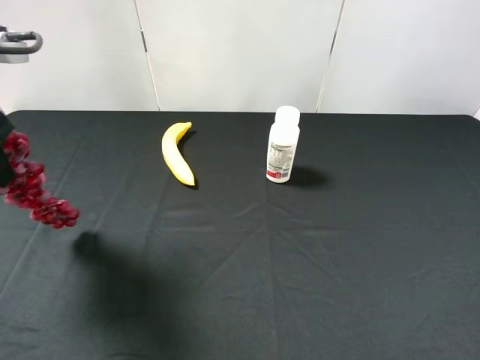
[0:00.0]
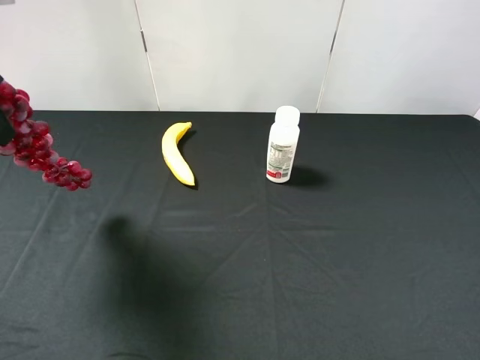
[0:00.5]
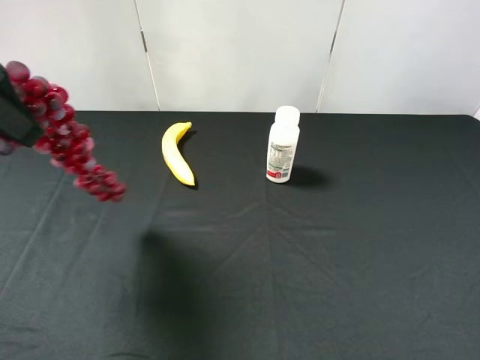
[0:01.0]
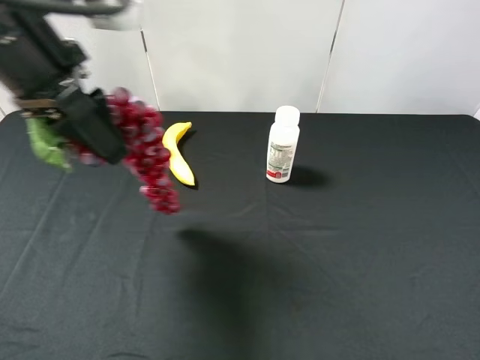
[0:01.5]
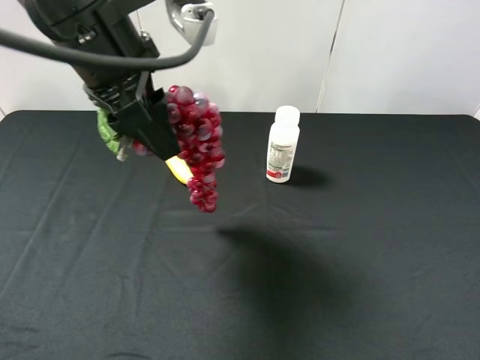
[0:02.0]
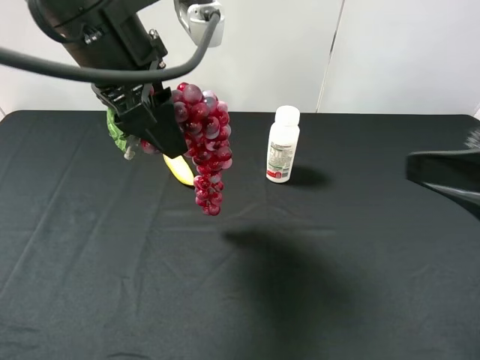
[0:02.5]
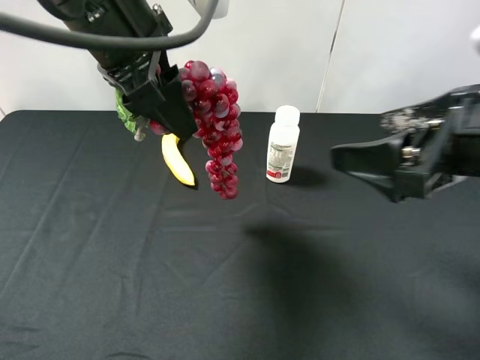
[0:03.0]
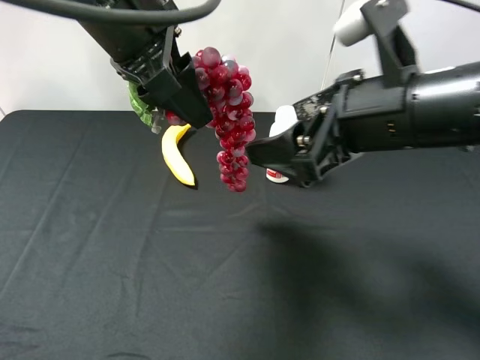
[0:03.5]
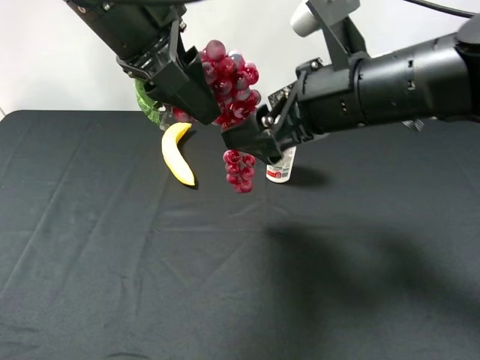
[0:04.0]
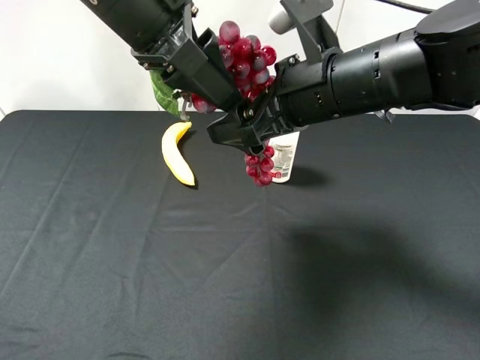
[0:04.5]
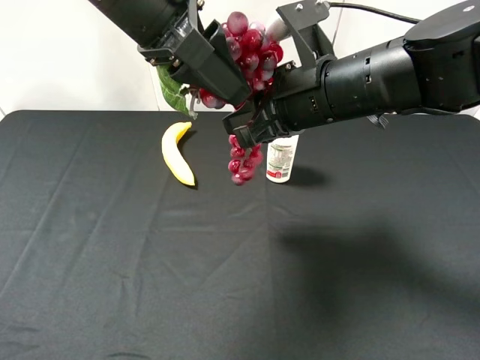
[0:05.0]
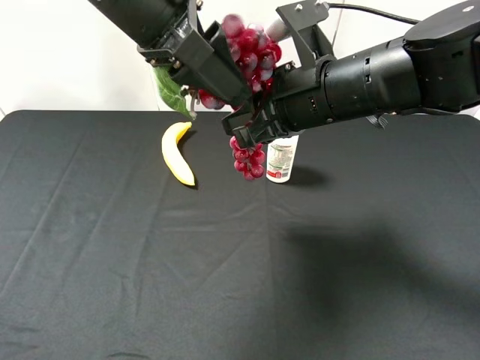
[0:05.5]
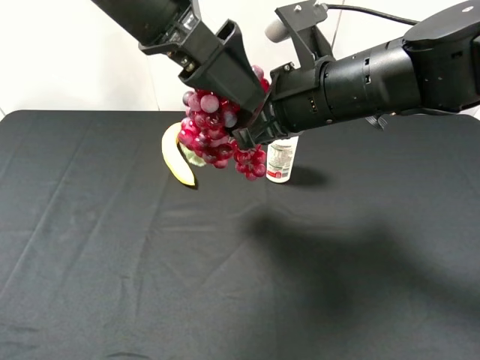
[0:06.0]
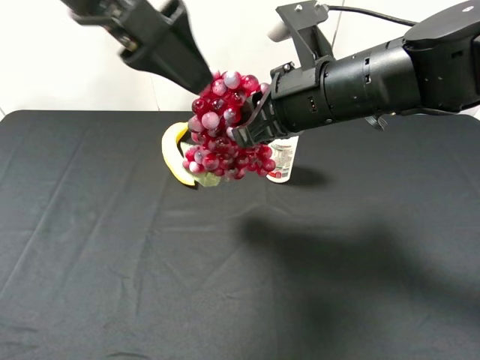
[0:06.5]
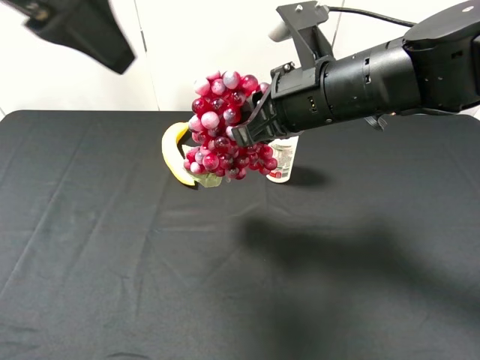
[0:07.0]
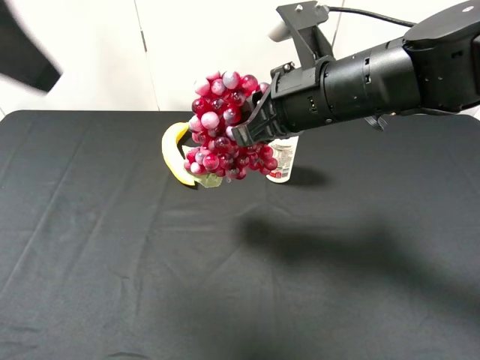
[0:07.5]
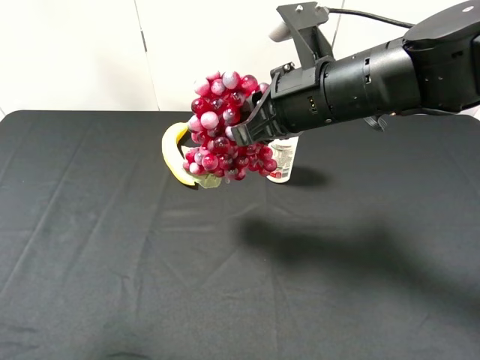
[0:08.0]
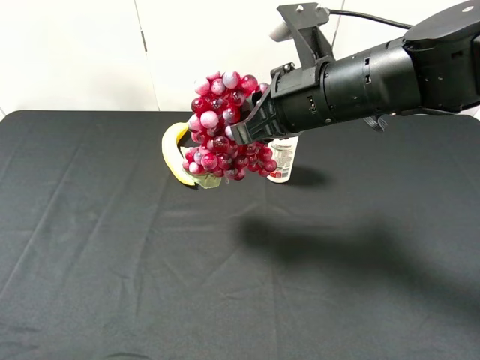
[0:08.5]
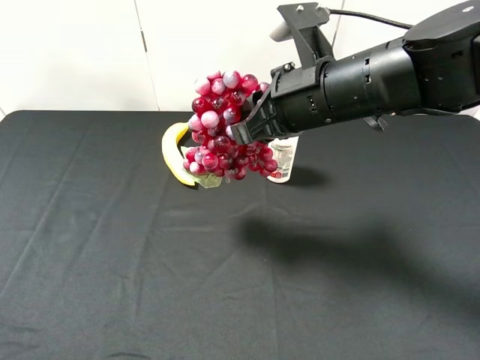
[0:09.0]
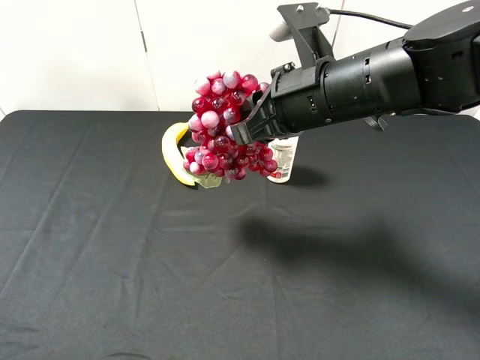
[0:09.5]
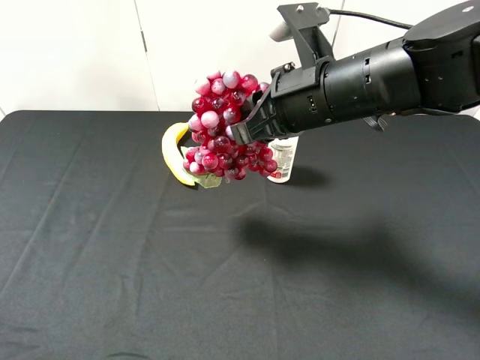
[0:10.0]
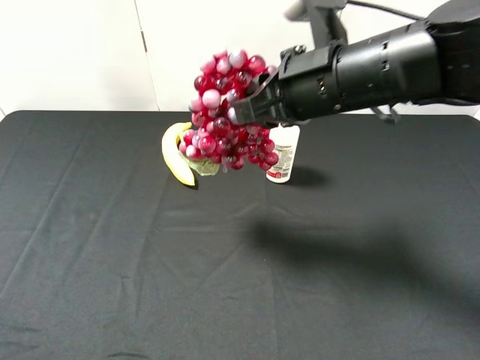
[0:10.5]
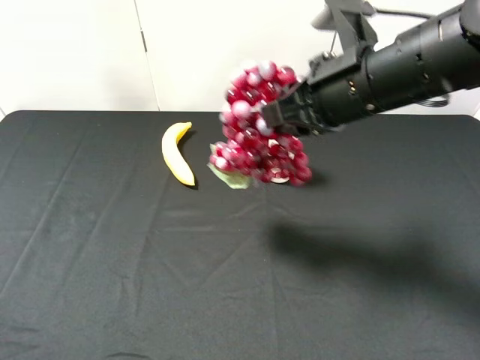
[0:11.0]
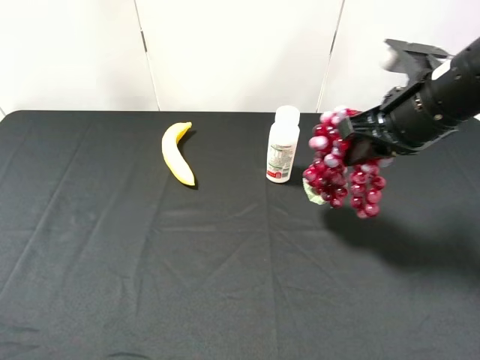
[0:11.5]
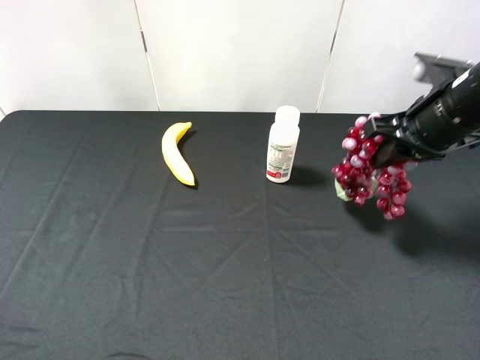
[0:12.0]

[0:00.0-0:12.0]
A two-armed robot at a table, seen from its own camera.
Task of the whole recording: use the left gripper to pick up the item and transfer it from the left gripper to the right gripper.
0:00.0 to 0:02.0: The left gripper goes roughly 15 cm to the right.
0:02.0 to 0:04.0: The right gripper moves forward and to the left, approximately 25 cm.
0:04.0 to 0:06.0: The left gripper opens up, while the right gripper closes up.
0:06.0 to 0:08.0: The left gripper moves backward and to the left, about 25 cm.
0:10.0 to 0:12.0: The right gripper goes some 15 cm to the right.

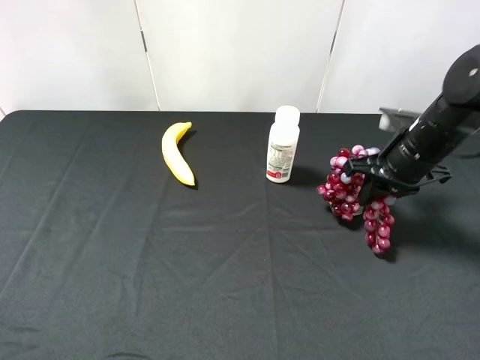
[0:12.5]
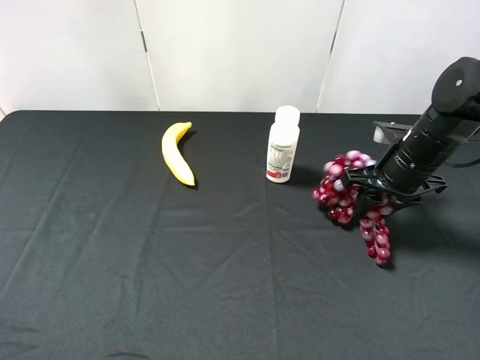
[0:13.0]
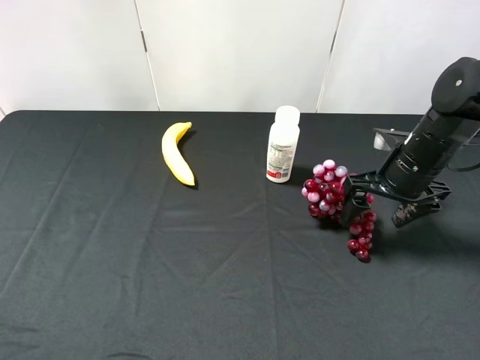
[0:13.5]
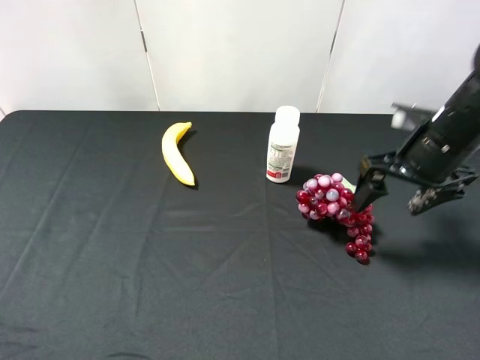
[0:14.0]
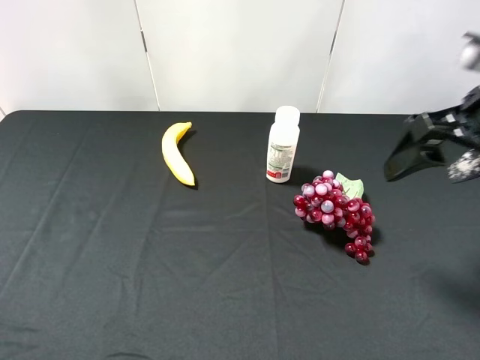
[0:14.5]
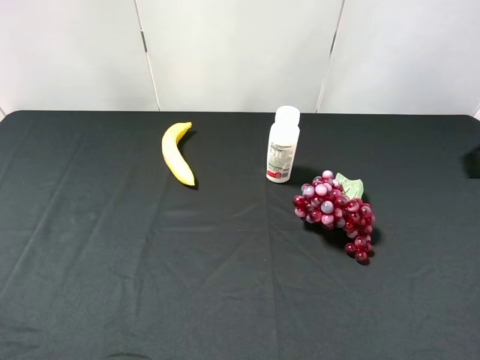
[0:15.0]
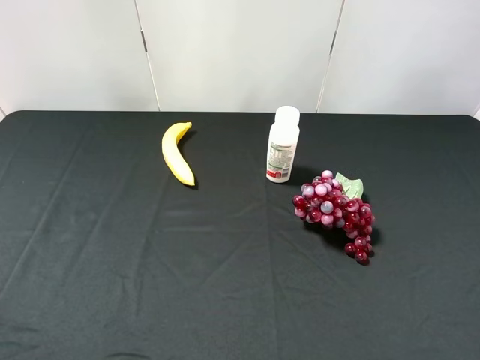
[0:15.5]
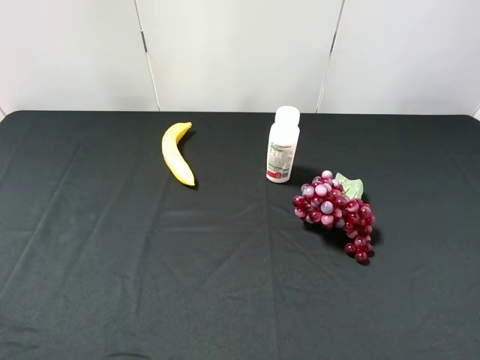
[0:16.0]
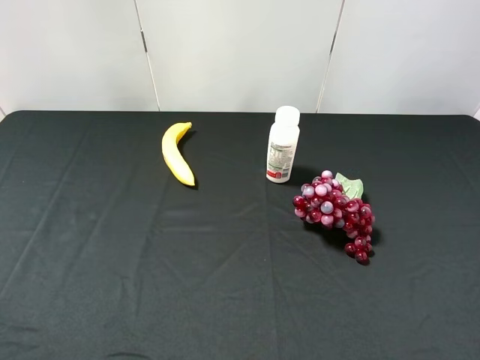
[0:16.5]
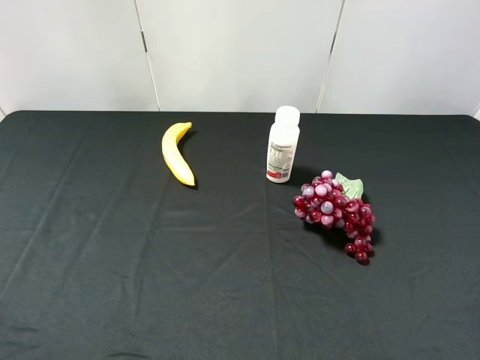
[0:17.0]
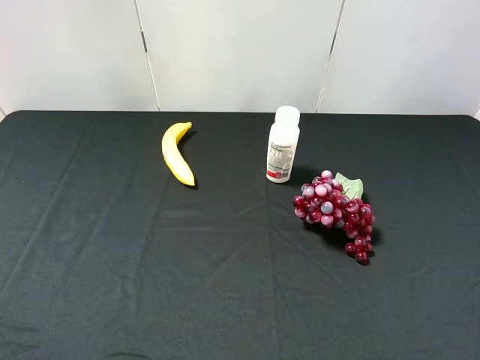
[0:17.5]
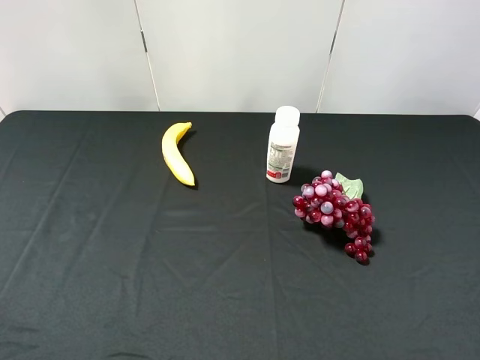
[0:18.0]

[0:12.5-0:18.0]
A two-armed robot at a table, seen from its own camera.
Task of the whole recording: use the left gripper to pick up the item and transfer it from the left gripper to the right gripper.
0:12.5 to 0:14.5: The right gripper moves upward and backward, some 15 cm, and opens up.
0:14.5 to 0:16.0: The right gripper heads backward, covering roughly 20 cm.

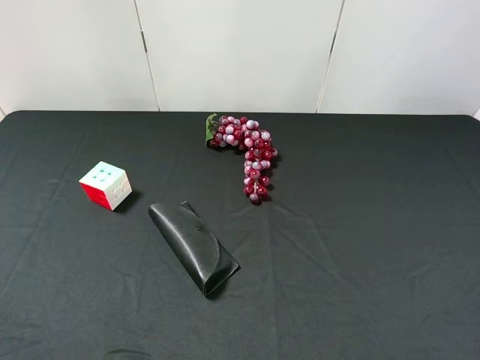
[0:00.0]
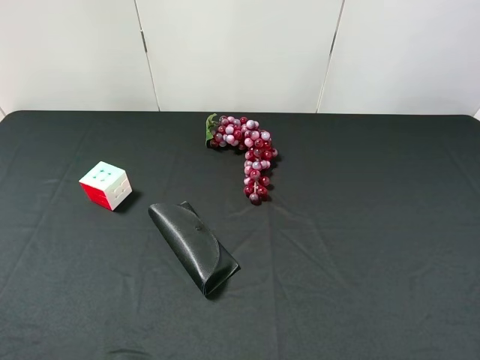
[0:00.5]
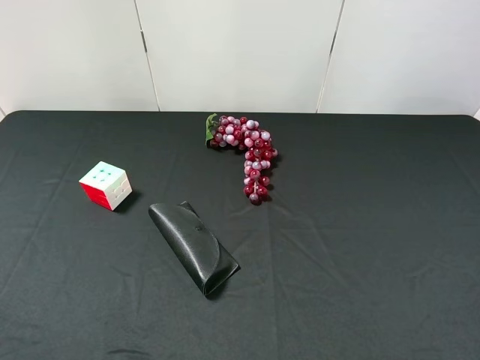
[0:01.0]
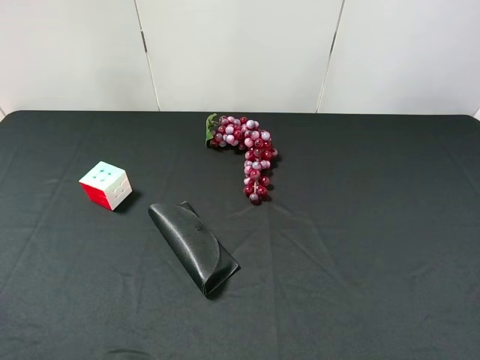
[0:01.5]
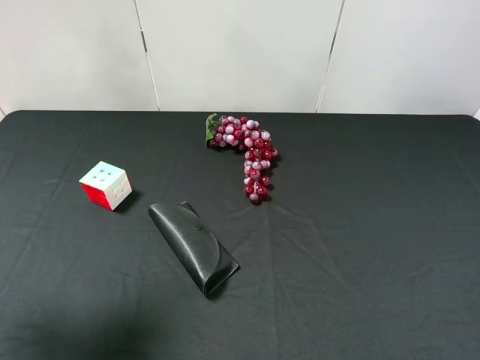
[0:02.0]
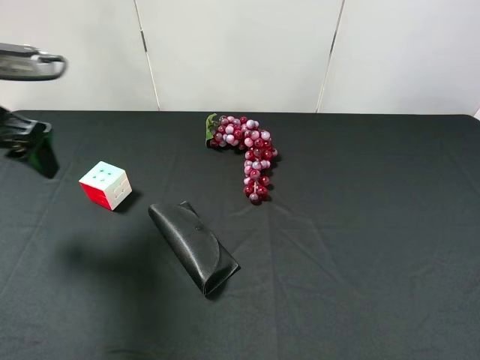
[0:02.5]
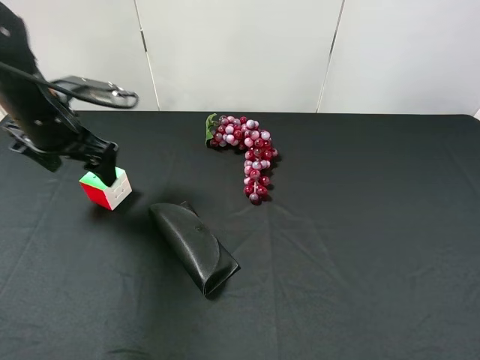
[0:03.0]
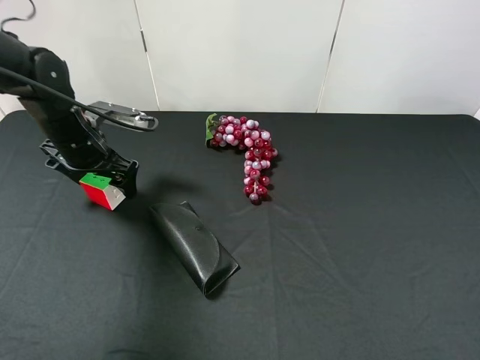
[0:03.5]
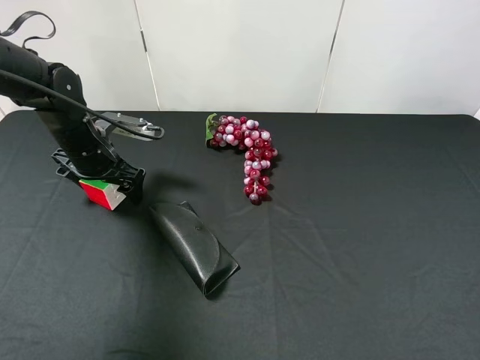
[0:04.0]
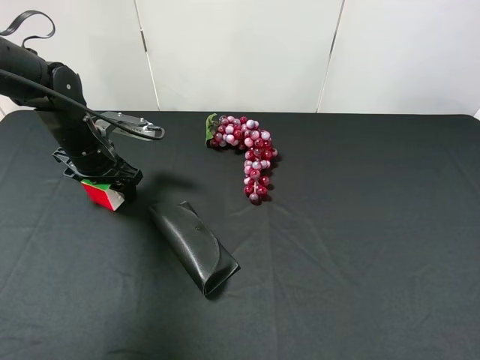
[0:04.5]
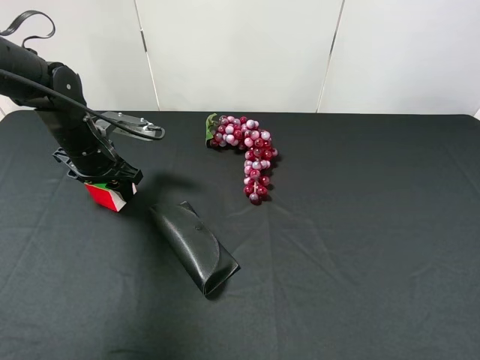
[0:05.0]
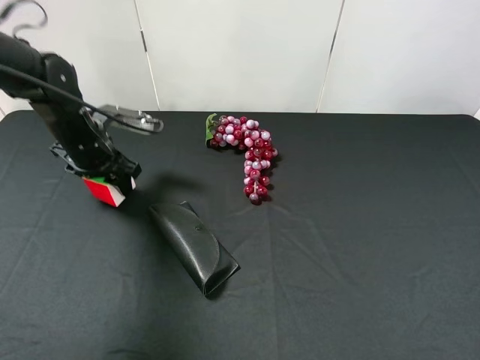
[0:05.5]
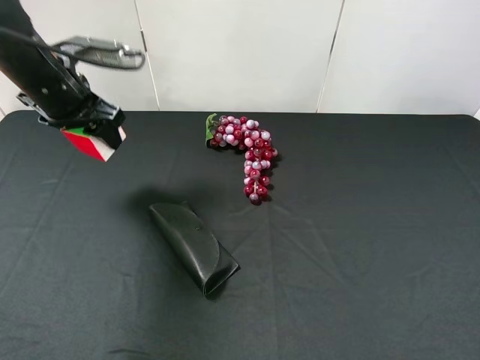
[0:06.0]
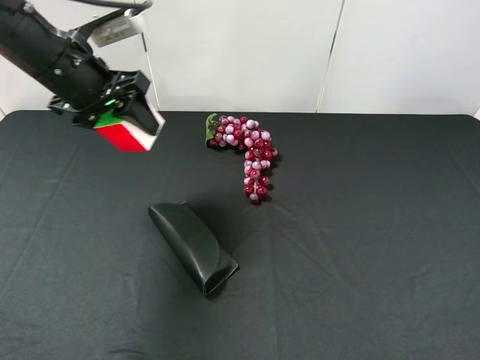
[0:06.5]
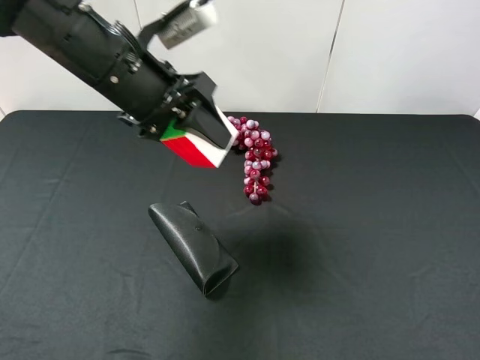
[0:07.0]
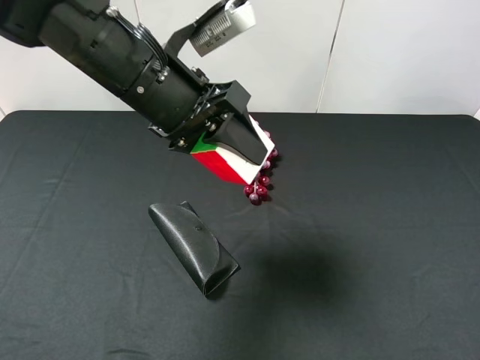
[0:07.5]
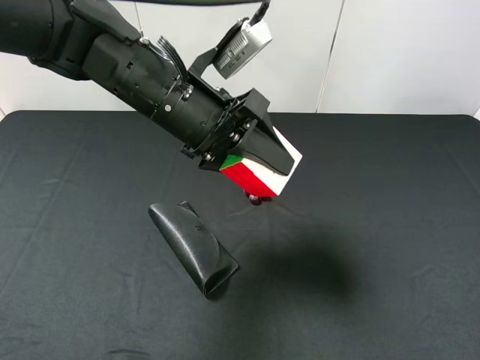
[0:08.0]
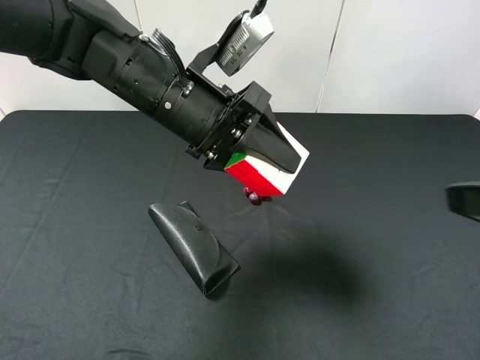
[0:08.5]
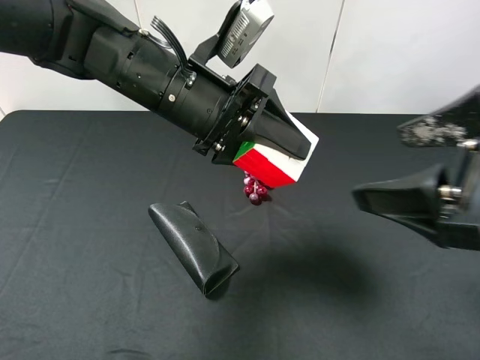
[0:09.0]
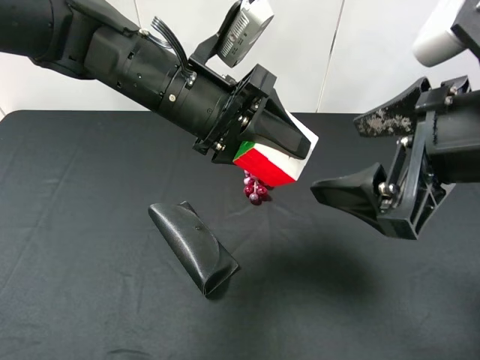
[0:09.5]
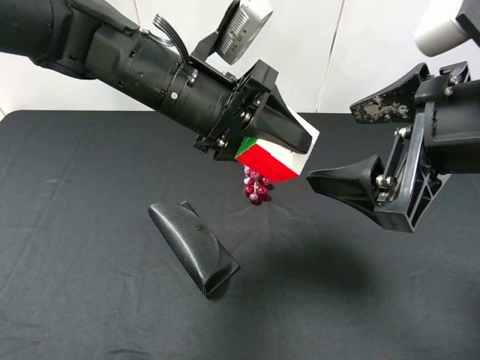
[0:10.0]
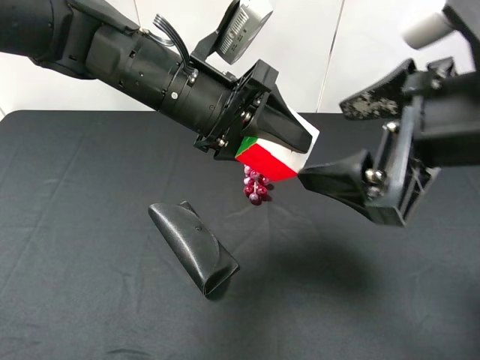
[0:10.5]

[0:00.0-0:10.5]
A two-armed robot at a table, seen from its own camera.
Task of the whole recording: use the left gripper to pick up the item and transfer it from the left gripper to the right gripper.
0:00.0 to 0:02.0: The left gripper heads forward, covering some 15 cm.
0:02.0 to 0:04.0: The left gripper heads downward, forward and to the right, covering about 30 cm.
0:04.0 to 0:06.5: The left gripper is displaced upward by some 15 cm, and closes up.
0:06.5 to 0:08.5: The right gripper goes approximately 10 cm forward. Meanwhile the left gripper goes some 15 cm to the right and backward.
0:08.5 to 0:10.5: The right gripper shifts some 10 cm to the left and forward.
